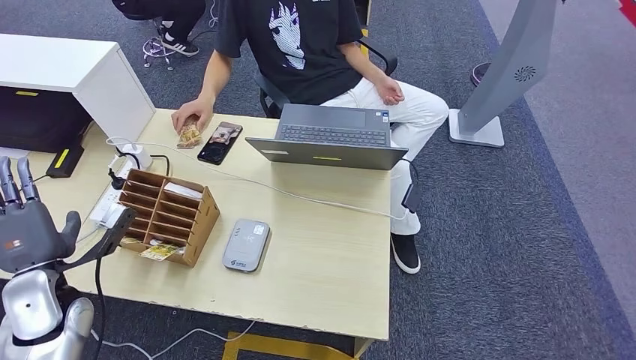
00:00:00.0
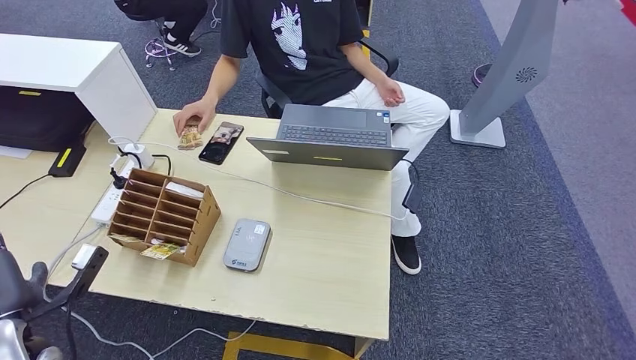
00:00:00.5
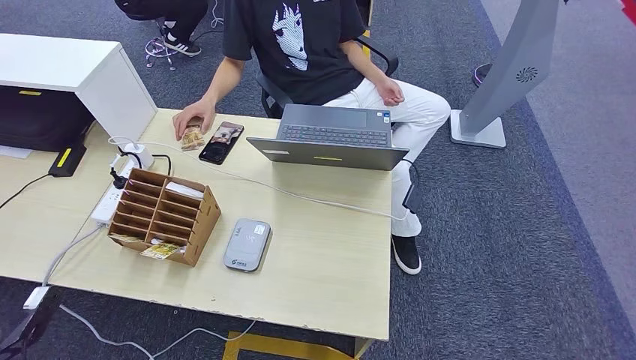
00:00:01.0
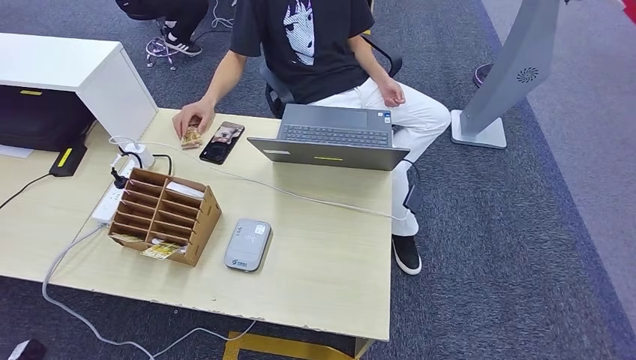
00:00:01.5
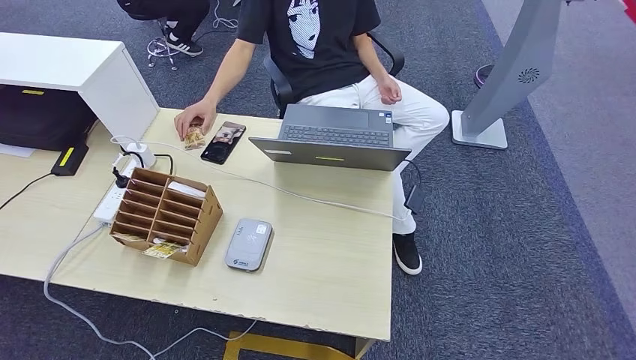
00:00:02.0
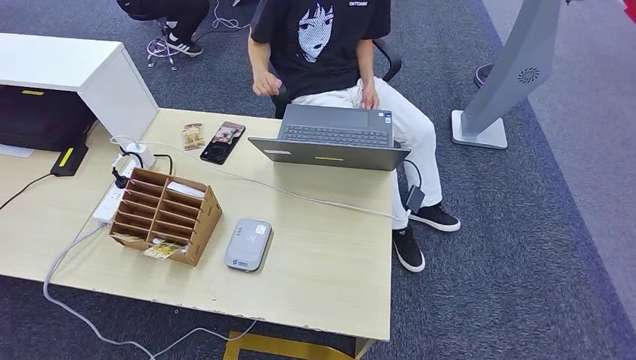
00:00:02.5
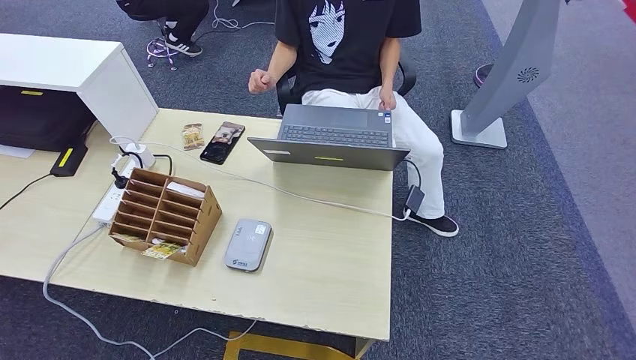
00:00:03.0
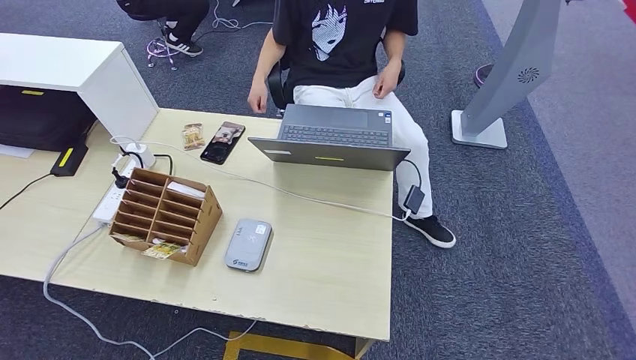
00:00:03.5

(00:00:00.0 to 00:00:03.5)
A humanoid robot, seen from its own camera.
Step, 00:00:00.0 - 00:00:03.5: Hand the room key to the person.
00:00:00.0 - 00:00:02.0: The left hand travels downward and backward by approximately 35 cm.
00:00:02.0 - 00:00:03.5: The left hand is displaced to the right by roughly 25 cm.
